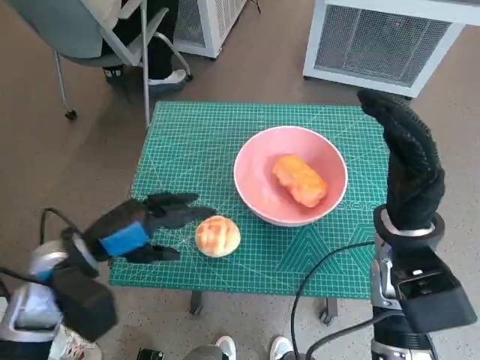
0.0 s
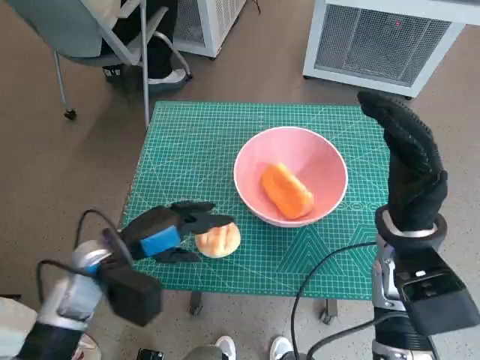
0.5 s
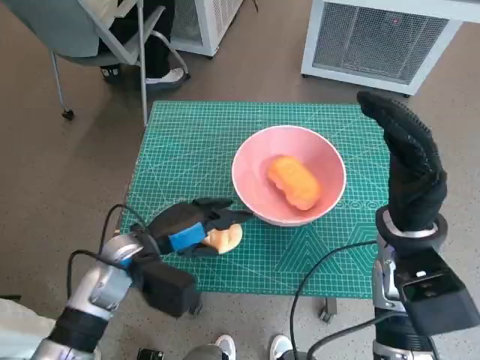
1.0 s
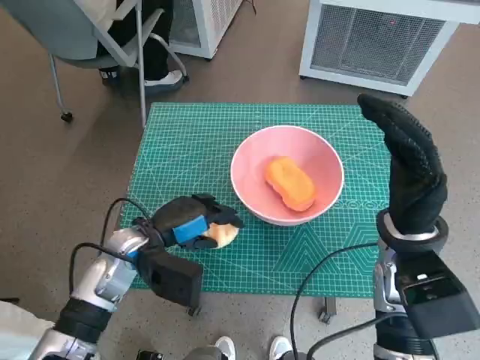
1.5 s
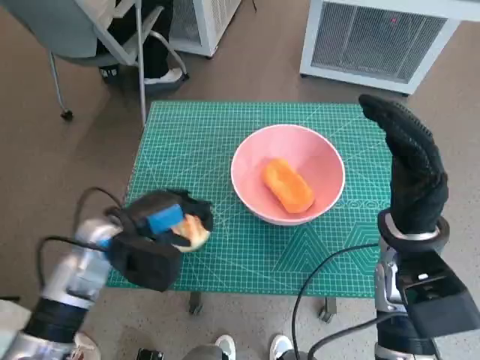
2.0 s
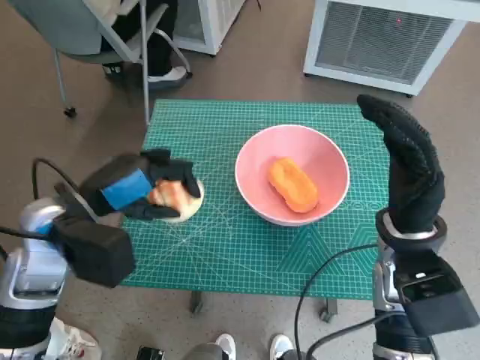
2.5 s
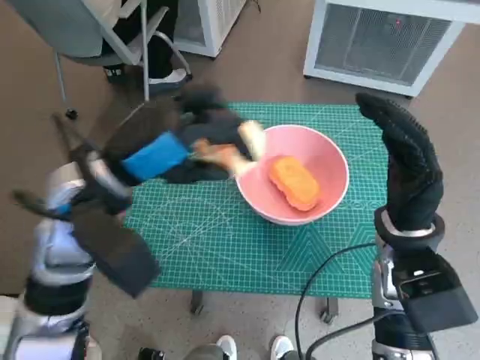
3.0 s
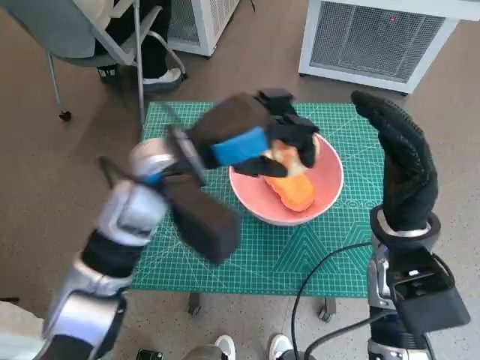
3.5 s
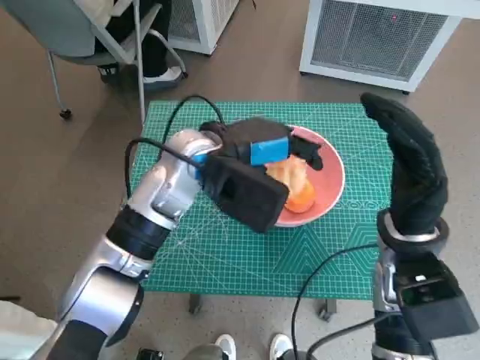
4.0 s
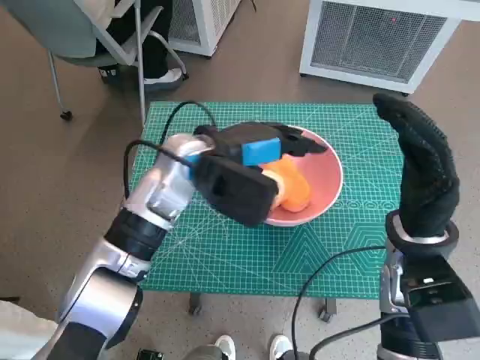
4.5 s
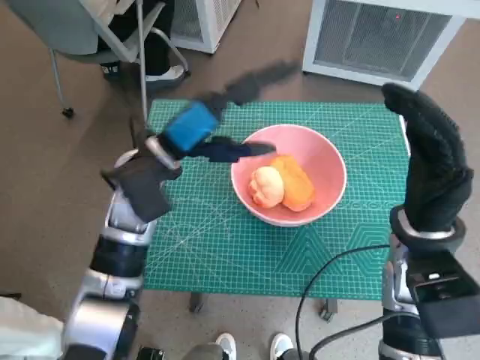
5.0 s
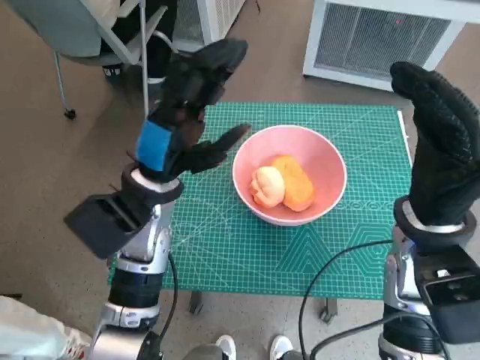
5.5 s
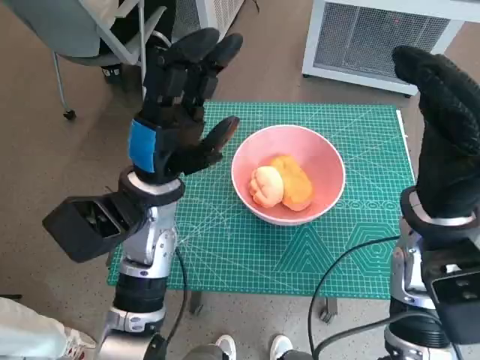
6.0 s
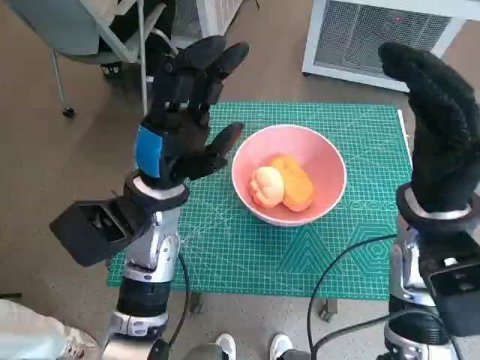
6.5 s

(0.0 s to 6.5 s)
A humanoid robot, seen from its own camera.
Task of the whole recording: Push the bowl to the center of the table and put the bread into the bowl.
Step, 2.0 s - 4.5 s: Place the round bread in pink bowl with left hand.
2.0 s - 4.5 s: The left hand goes some 15 cm to the right, upward and forward.
4.5 s - 6.5 s: The left hand heads backward, covering roughly 5 cm.
